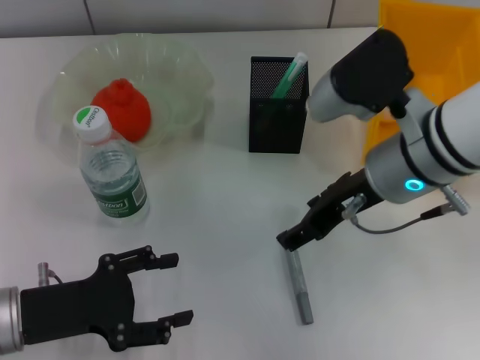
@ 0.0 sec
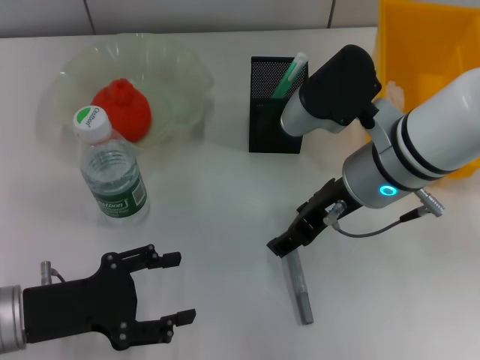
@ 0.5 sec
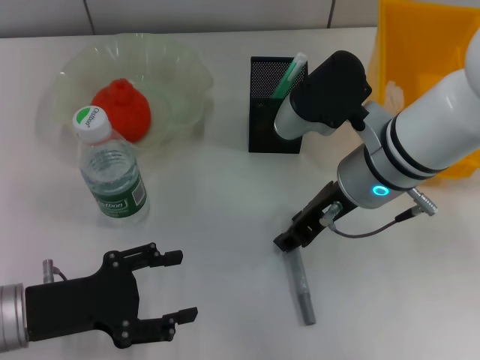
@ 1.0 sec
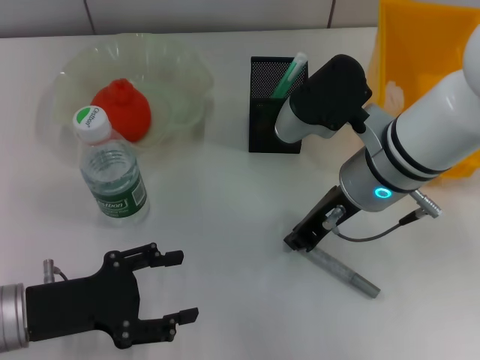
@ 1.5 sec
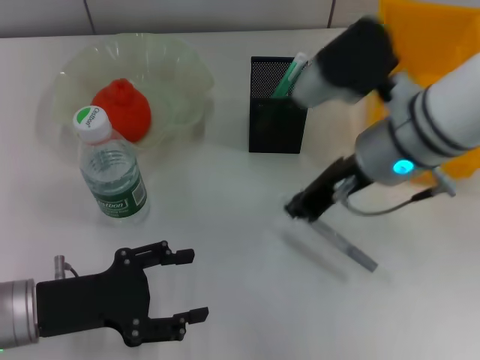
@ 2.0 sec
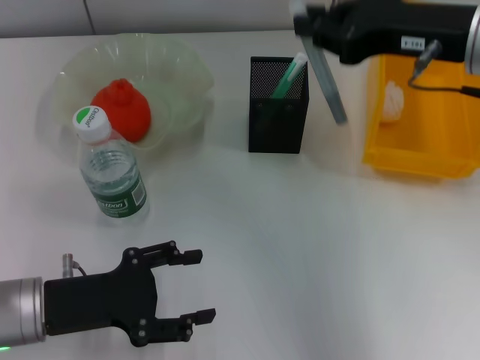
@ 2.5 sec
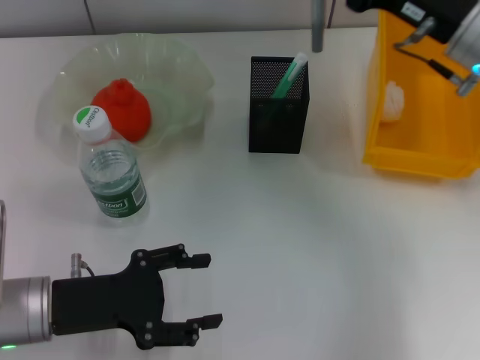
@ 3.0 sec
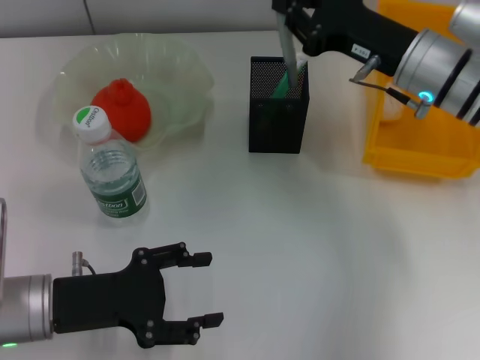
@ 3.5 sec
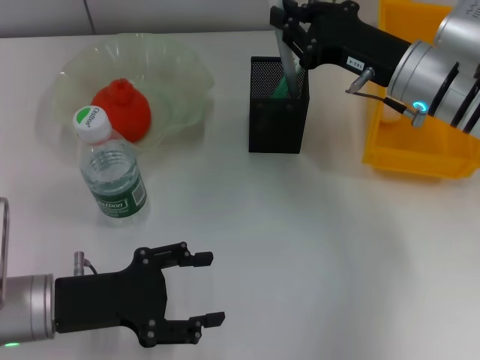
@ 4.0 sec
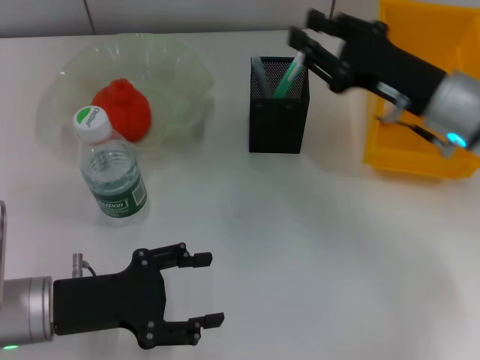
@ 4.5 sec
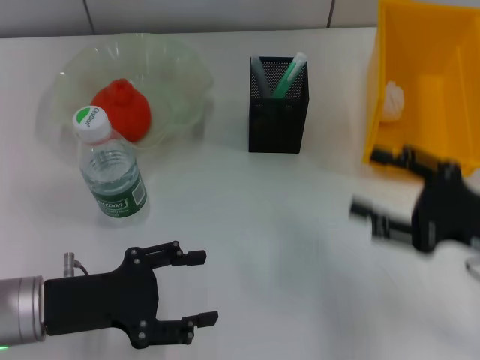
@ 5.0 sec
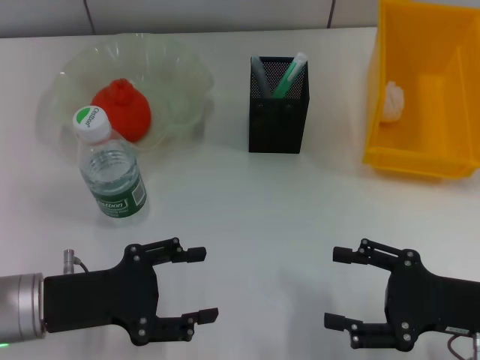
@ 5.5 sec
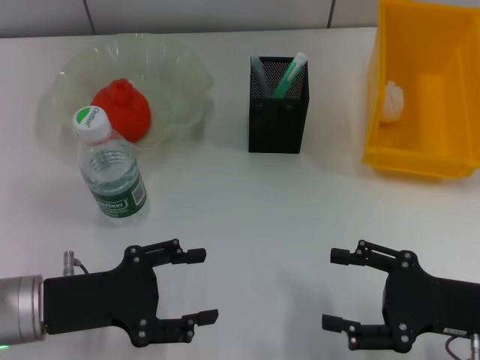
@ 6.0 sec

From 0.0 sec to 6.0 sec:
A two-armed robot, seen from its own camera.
Step, from 0.0 sec to 1.5 sec: Grab the gray glue with the right hand.
Step, from 2.0 sec to 4.0 sec: Place the gray glue into the pen holder with the right hand.
From 0.0 sec to 2.0 sec: The right gripper closes.
From 2.0 sec to 4.0 sec: The right gripper shifts roughly 10 cm to the right and forward, and reaches approximately 5 cm upward, then returns.
From 4.0 sec to 6.0 sec: The right gripper shifts about 20 cm backward and to the right, and opens its fingers.
